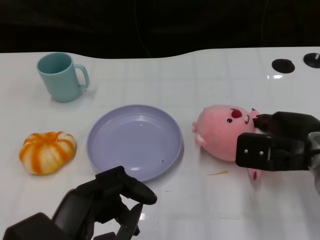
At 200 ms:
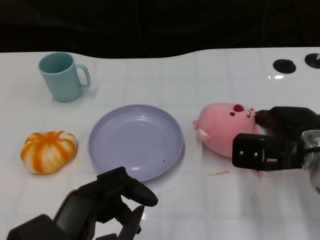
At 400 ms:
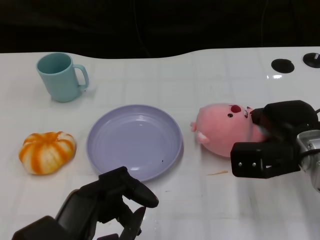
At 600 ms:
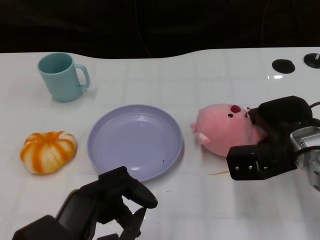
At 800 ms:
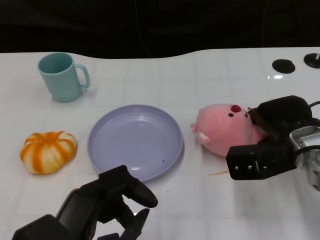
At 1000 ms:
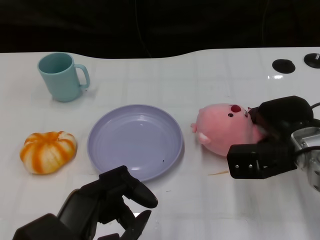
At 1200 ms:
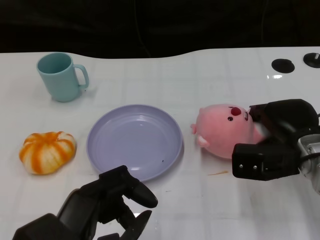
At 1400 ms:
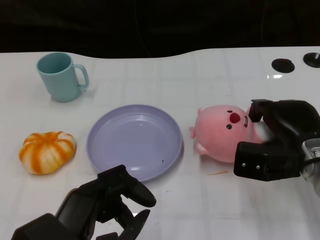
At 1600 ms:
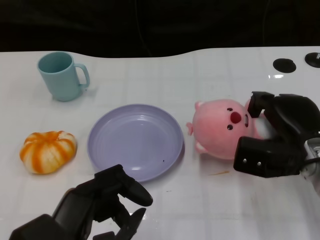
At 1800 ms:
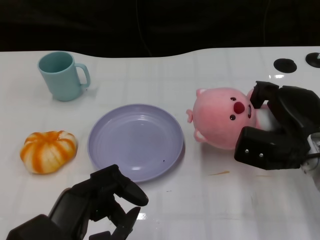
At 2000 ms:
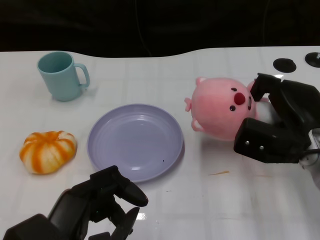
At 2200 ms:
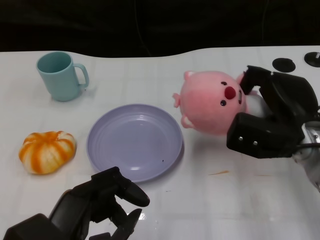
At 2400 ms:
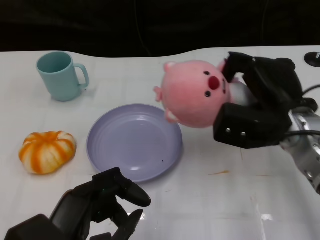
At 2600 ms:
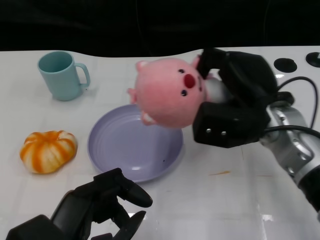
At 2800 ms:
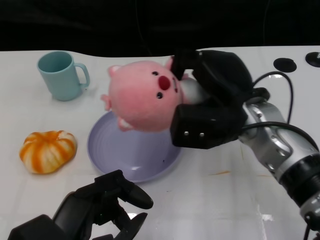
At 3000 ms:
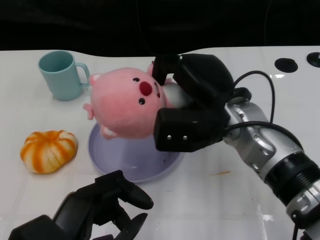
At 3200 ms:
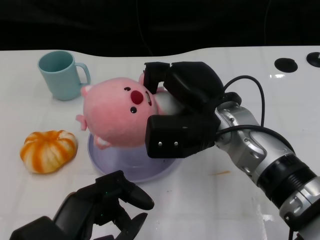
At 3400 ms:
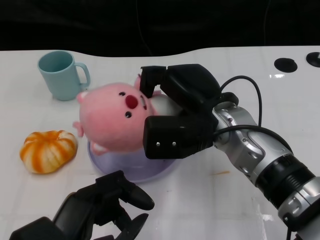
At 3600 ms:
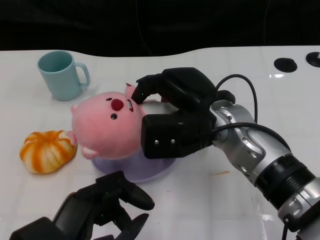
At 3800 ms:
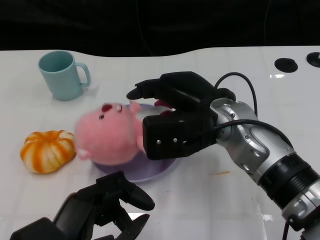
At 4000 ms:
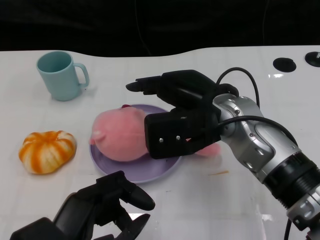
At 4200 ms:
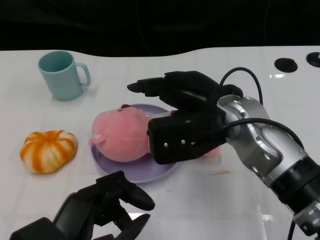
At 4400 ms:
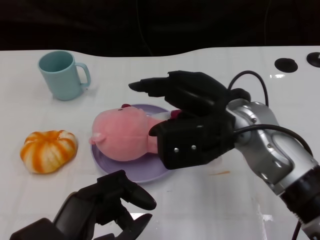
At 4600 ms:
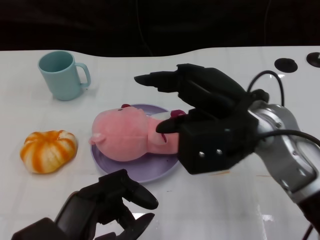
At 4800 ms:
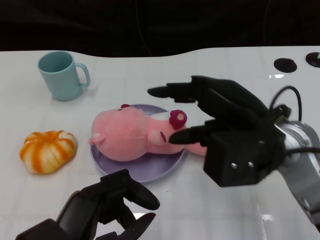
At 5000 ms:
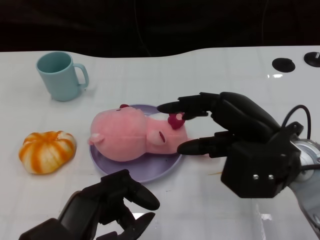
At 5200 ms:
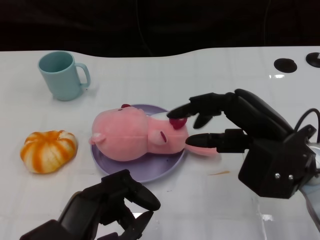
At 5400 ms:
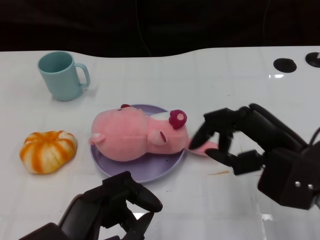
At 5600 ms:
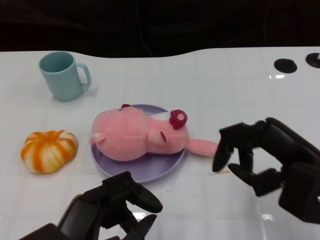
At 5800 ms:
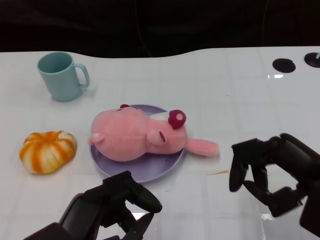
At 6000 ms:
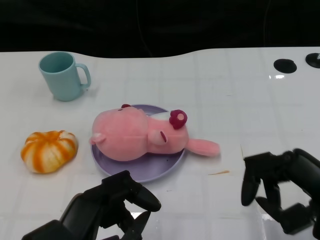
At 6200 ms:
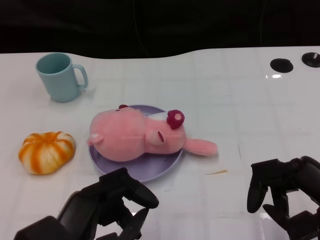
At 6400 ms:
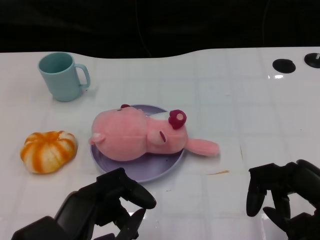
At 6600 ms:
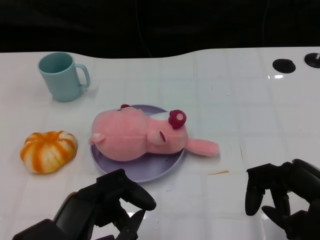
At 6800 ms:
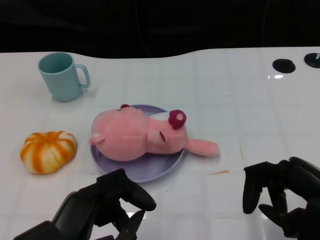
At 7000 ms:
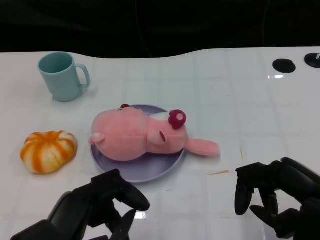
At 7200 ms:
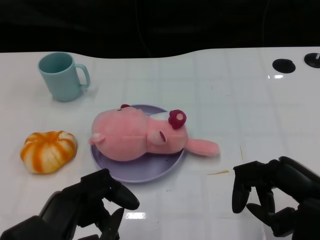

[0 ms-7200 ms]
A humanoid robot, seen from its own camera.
Task of the whole recording: Pick up the doll on the other side of the plate and place it into the plate.
Step, 0 ms to 2400 ms: Grasp the pink doll with the right gripper.
Step, 2800 ms to 4800 ms: Place the pink doll into the plate with the right gripper.
1400 ms to 2800 ms: The right hand is displaced to the left and upward by approximately 10 cm.
4400 ms to 5800 ms: The right hand shifts roughly 15 cm to the right and backward.
5800 ms to 7200 ms: The hands make only small movements.
